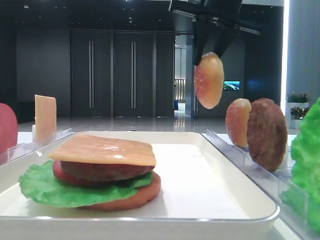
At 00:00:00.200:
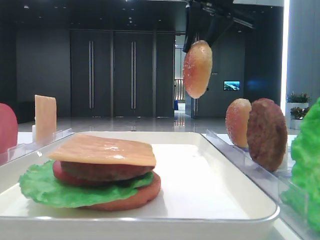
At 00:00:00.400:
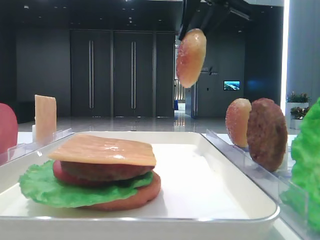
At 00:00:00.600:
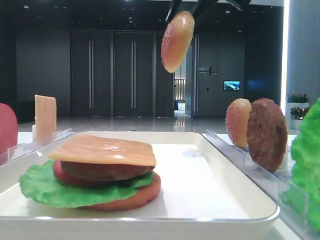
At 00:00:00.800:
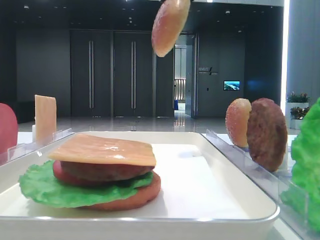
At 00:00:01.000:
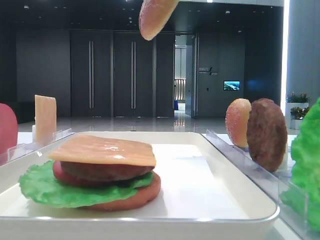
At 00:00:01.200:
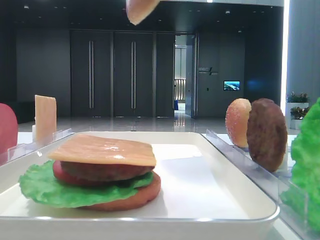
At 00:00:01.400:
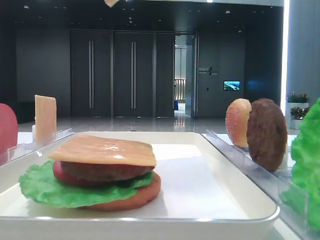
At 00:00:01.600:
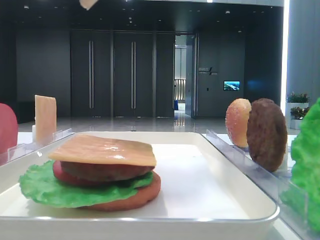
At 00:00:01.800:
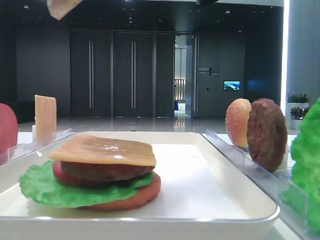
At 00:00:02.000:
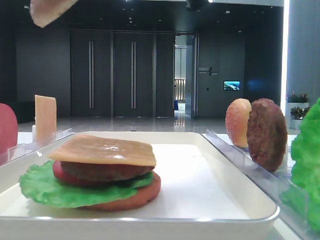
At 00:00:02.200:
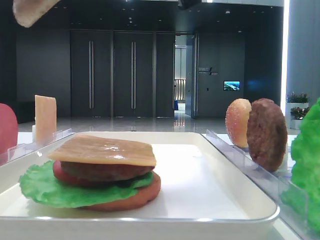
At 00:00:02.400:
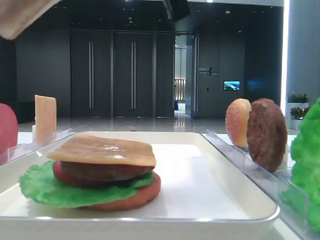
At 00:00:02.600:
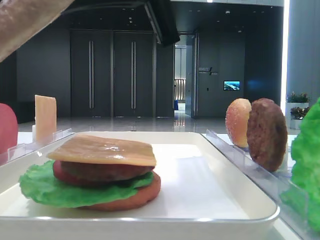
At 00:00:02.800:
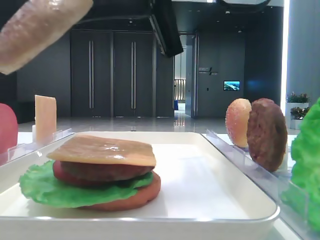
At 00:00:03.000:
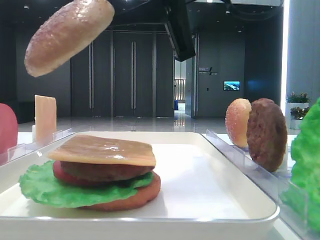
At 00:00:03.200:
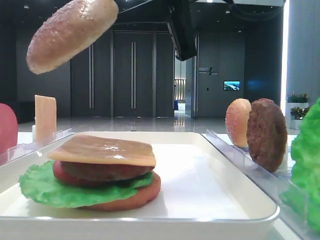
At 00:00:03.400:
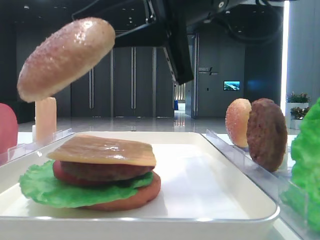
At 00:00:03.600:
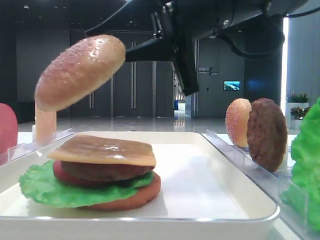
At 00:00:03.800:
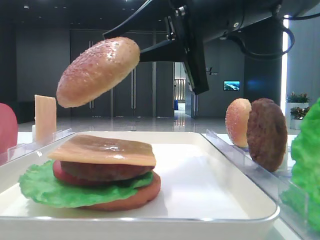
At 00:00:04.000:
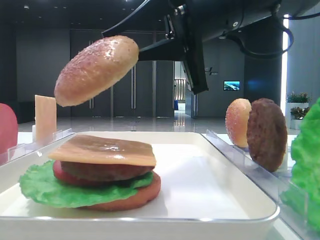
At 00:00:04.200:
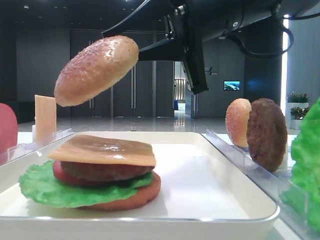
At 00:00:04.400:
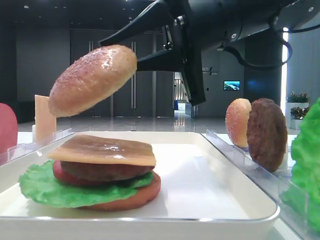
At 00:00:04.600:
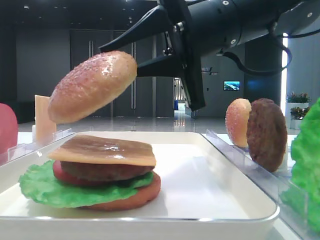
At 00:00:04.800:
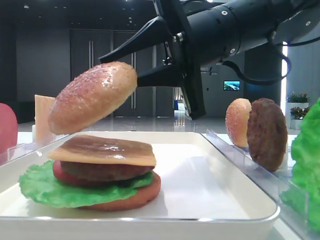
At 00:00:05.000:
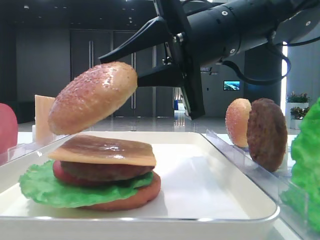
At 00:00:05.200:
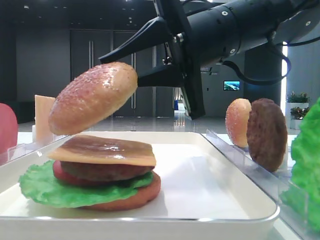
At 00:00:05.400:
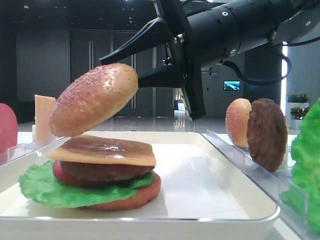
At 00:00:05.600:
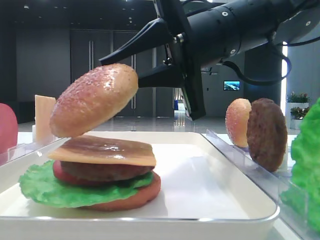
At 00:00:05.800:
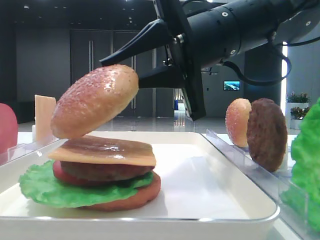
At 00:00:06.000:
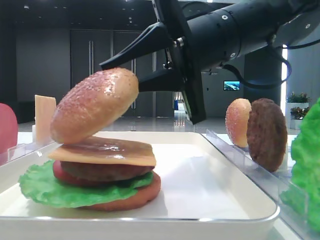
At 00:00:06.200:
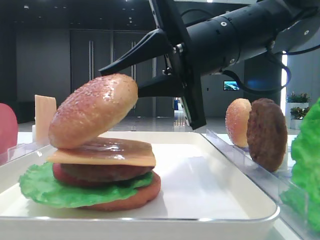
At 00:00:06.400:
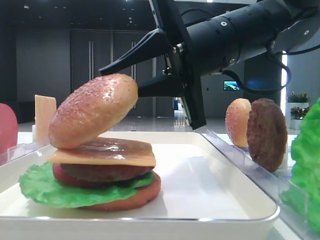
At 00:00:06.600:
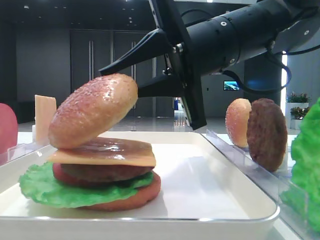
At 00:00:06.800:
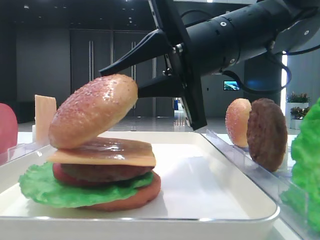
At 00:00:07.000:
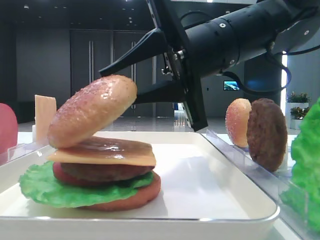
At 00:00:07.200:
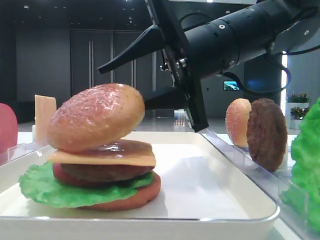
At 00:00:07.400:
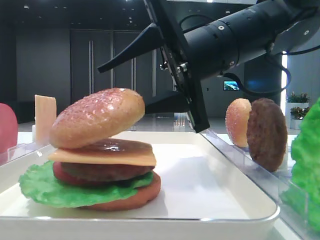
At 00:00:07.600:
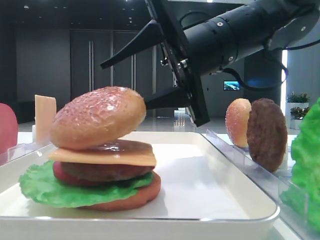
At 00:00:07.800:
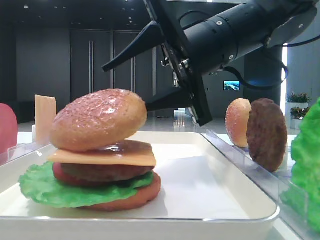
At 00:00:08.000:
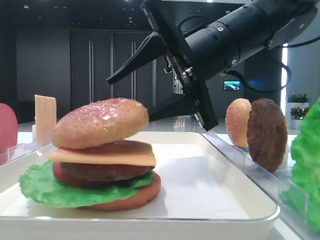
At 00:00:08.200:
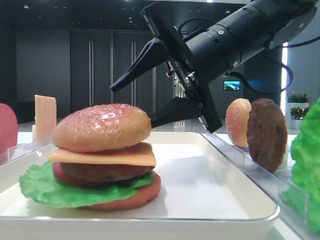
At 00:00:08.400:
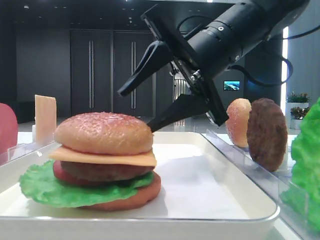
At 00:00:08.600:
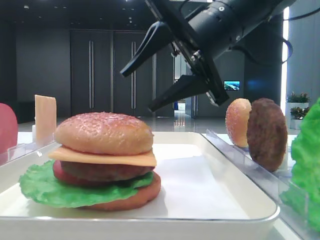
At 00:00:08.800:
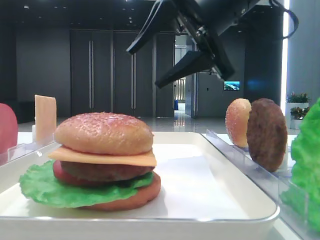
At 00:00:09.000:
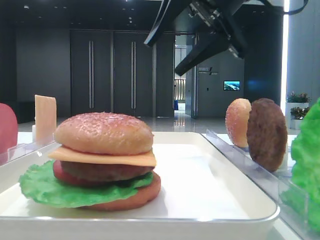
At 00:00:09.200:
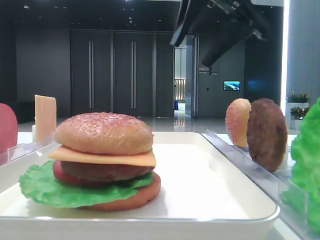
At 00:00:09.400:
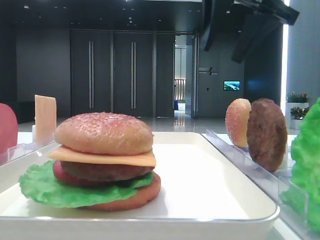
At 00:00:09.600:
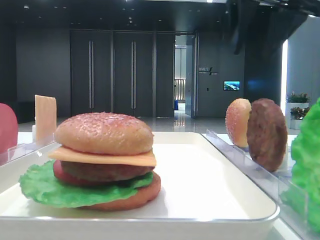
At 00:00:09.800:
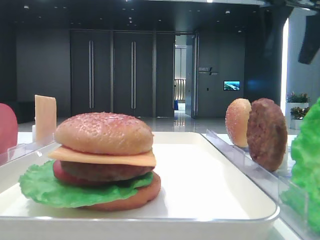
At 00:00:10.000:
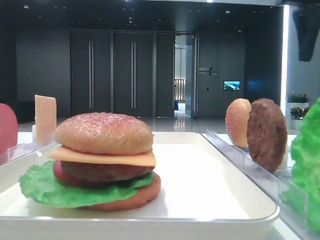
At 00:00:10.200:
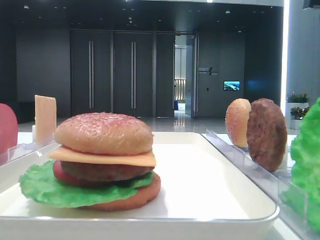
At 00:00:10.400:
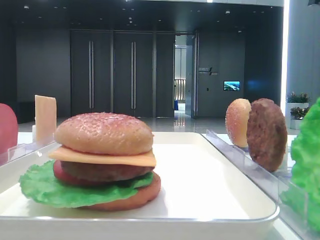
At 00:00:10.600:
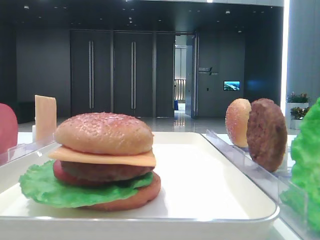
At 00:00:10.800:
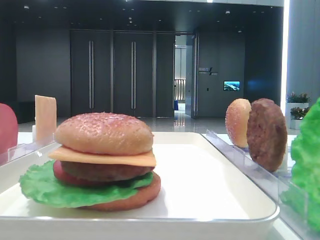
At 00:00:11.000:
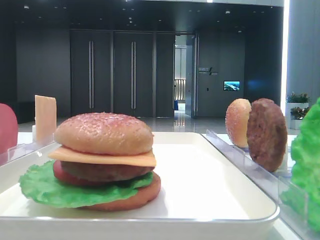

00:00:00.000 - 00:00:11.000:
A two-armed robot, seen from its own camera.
Step, 00:00:00.000 - 00:00:08.400: Place the top bread slice on the cheese with the right hand.
00:00:00.000 - 00:00:01.600: The right gripper shifts roughly 15 cm backward.
00:00:01.600 - 00:00:03.200: The right gripper heads downward, covering some 10 cm.
00:00:03.200 - 00:00:04.800: The right gripper travels downward by about 5 cm.
00:00:04.800 - 00:00:06.200: Both grippers stay put.
00:00:06.200 - 00:00:07.800: The right gripper opens.
00:00:07.800 - 00:00:09.400: The right gripper is displaced upward and to the right by roughly 15 cm.
00:00:09.400 - 00:00:11.000: The right gripper is displaced to the right and backward by about 20 cm.

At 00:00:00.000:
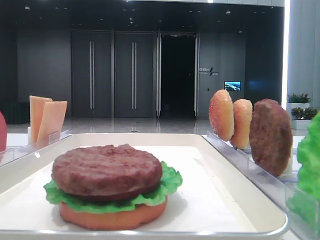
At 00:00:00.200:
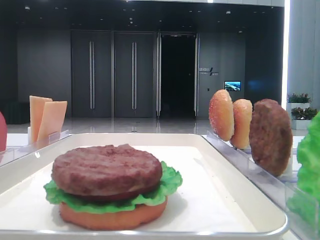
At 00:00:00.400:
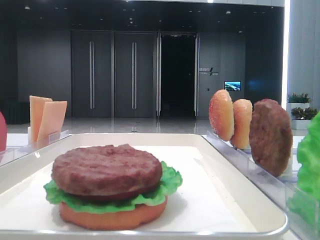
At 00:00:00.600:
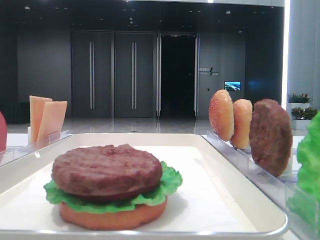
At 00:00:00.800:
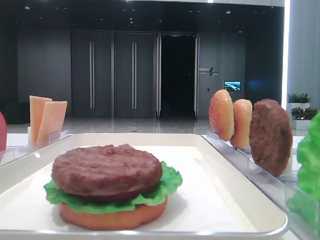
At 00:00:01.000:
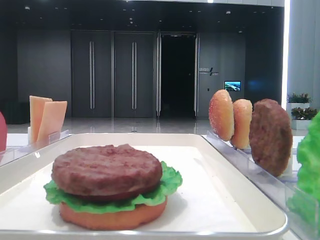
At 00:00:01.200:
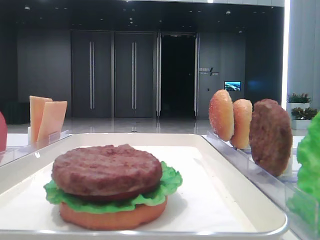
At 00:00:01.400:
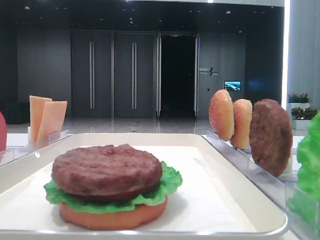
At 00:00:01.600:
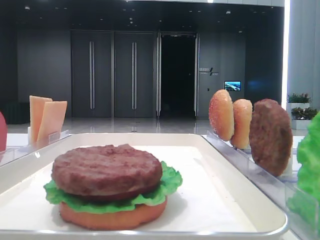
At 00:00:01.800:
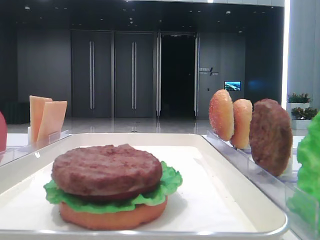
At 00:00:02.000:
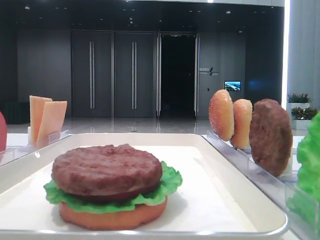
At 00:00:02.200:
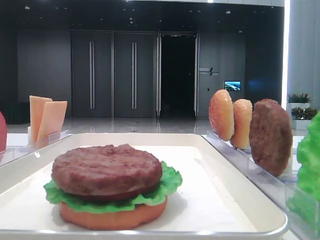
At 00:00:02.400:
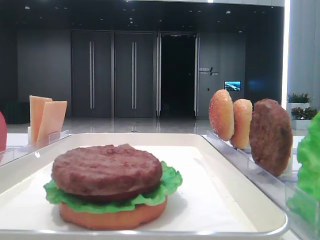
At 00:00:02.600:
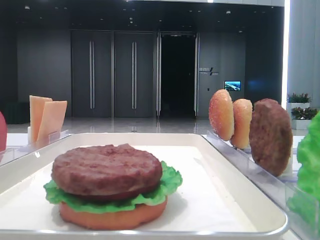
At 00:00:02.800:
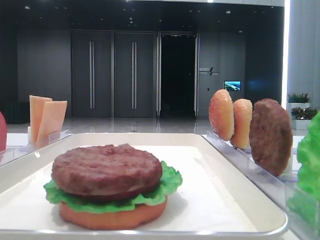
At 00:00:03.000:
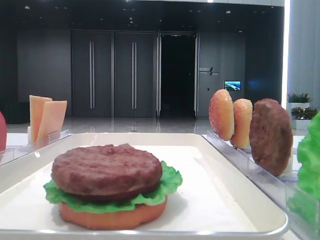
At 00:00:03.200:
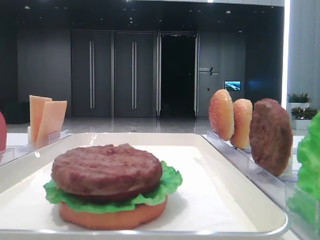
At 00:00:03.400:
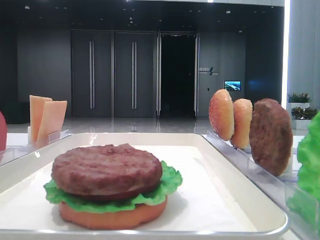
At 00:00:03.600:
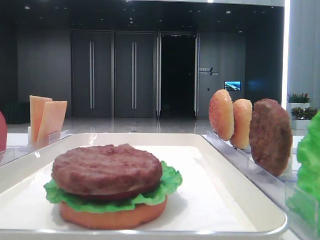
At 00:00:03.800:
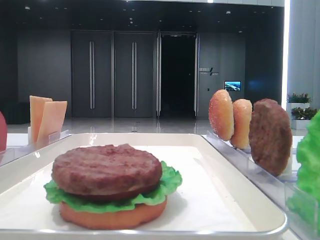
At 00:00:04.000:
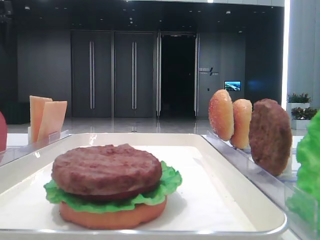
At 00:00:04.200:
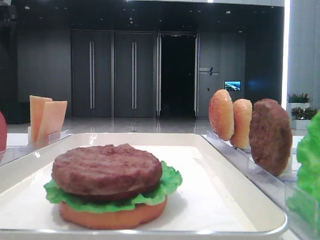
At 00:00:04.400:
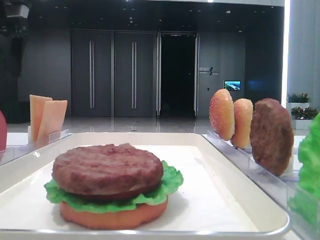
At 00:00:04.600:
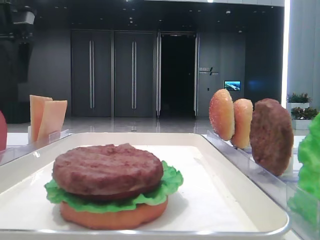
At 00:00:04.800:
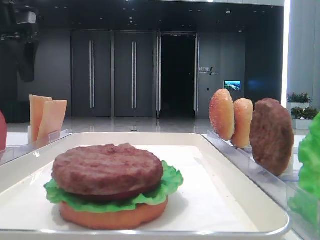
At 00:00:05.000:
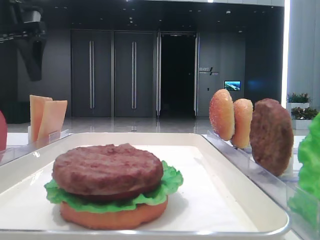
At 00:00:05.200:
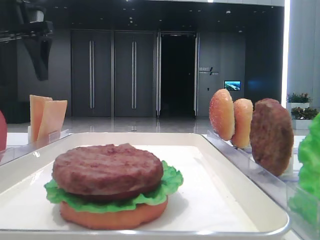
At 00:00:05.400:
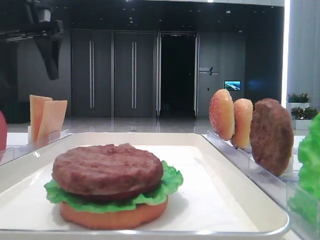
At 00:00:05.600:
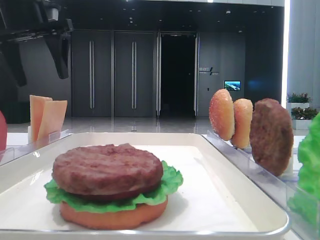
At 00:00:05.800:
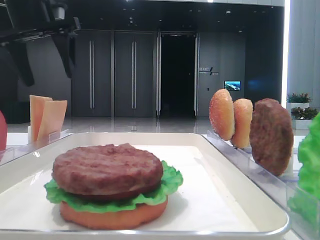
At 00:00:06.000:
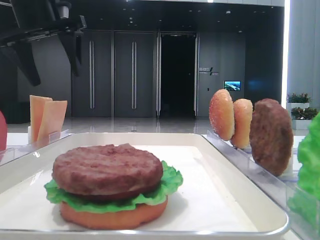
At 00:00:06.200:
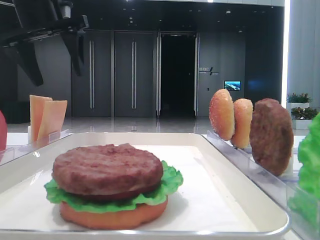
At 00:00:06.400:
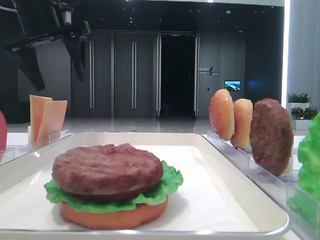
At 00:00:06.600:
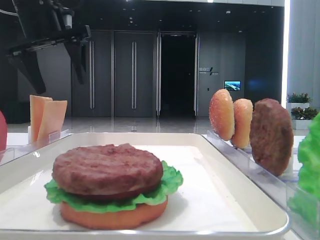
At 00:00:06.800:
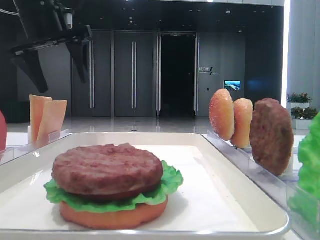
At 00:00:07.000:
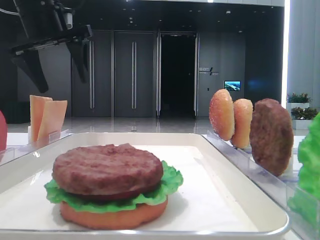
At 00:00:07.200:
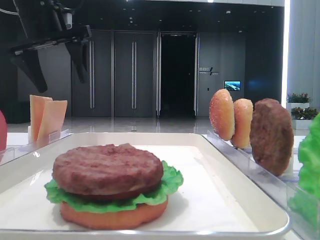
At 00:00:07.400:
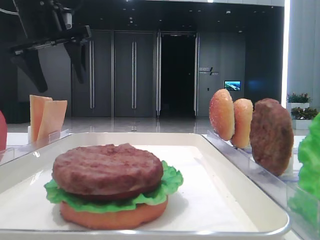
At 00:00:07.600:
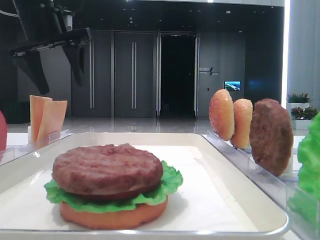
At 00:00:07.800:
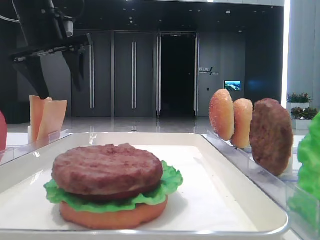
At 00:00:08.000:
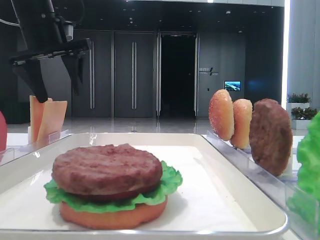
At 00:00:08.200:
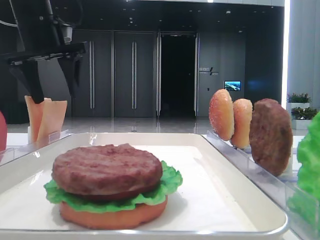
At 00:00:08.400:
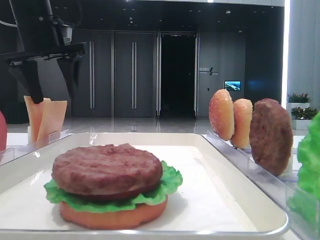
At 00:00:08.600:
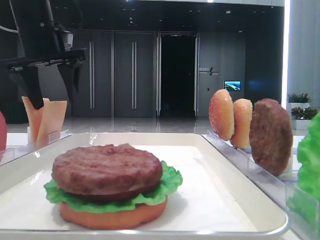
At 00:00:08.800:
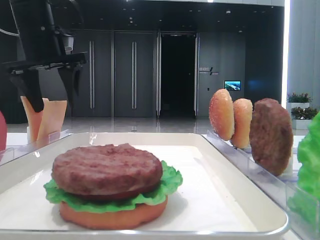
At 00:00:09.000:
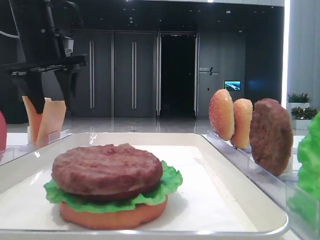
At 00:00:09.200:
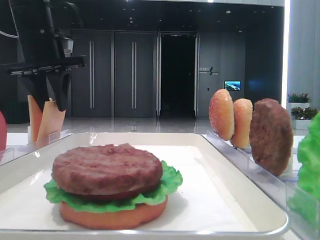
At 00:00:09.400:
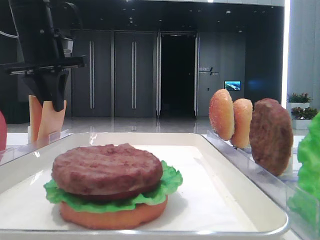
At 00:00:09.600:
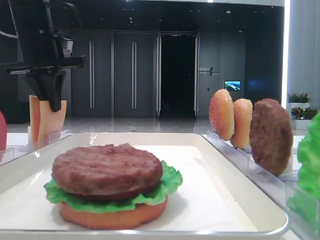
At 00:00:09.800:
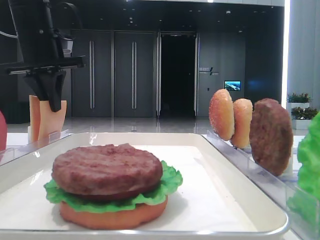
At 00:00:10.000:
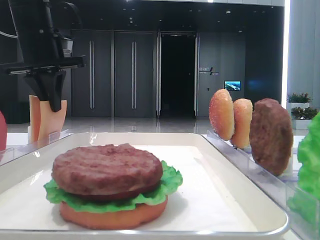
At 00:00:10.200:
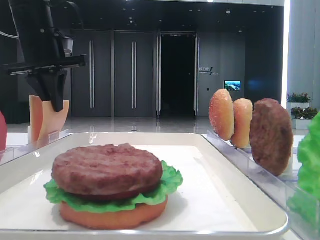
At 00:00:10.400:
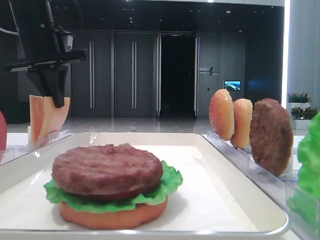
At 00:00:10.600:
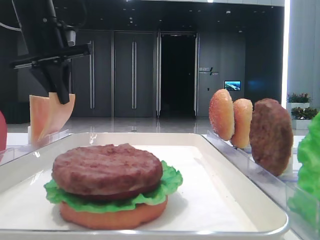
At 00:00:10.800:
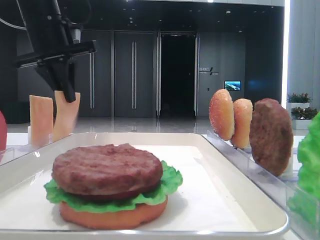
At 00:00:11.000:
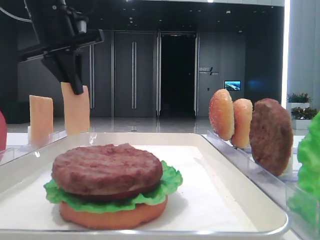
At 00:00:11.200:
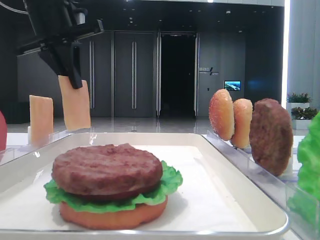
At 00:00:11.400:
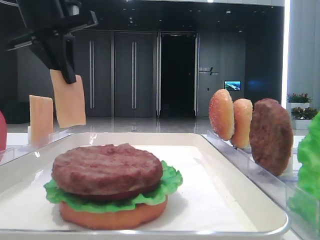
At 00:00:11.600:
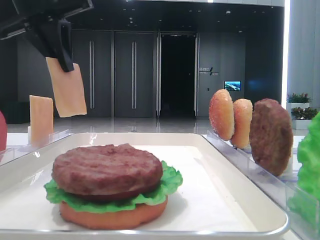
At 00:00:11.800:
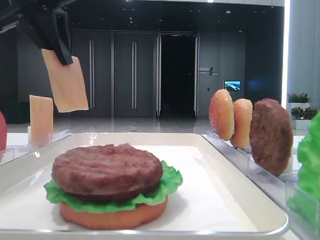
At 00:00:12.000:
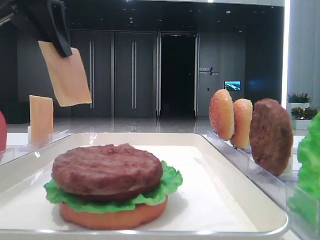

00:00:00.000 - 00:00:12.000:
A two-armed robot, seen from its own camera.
Step, 00:00:00.000 - 00:00:10.000: Pick up the cheese slice with the left hand.
00:00:03.000 - 00:00:04.400: The left gripper shifts roughly 20 cm forward.
00:00:04.400 - 00:00:06.000: The left gripper heads to the right, covering roughly 10 cm.
00:00:06.000 - 00:00:09.000: The grippers stay close to where they were, moving slightly.
00:00:09.000 - 00:00:10.400: The left gripper closes its fingers.
00:00:10.400 - 00:00:12.000: The left gripper heads backward and upward, covering some 10 cm.
